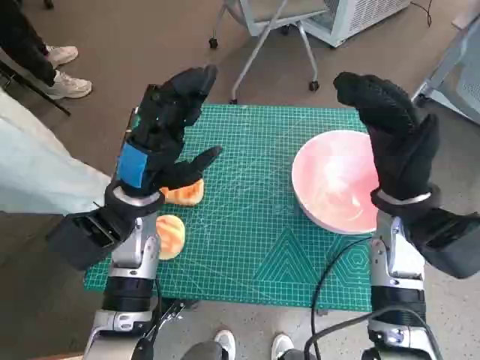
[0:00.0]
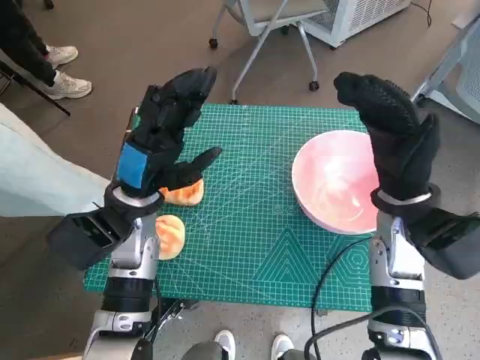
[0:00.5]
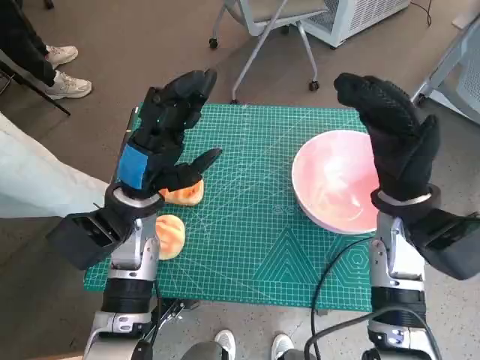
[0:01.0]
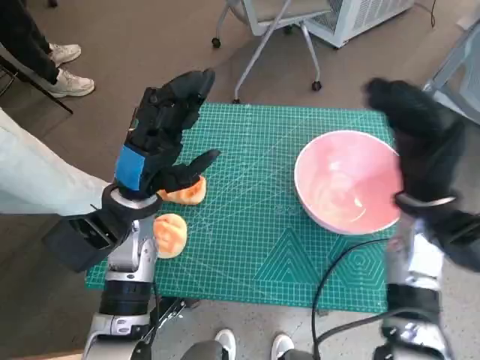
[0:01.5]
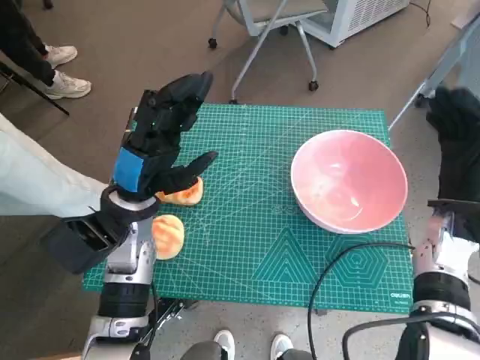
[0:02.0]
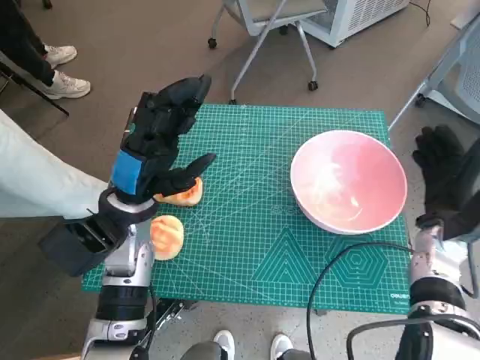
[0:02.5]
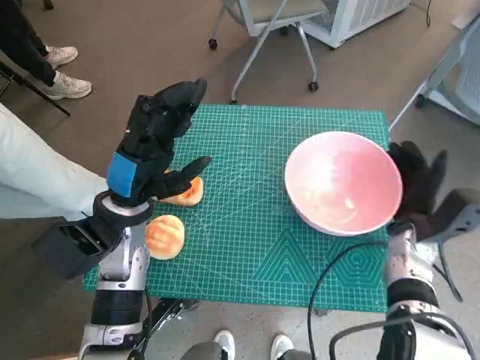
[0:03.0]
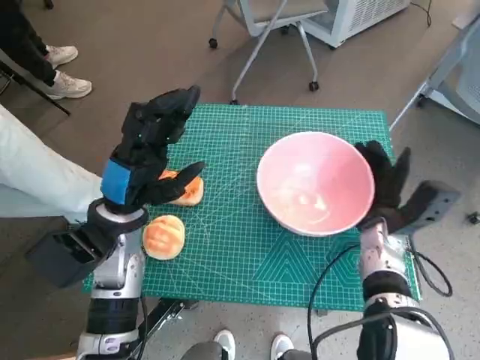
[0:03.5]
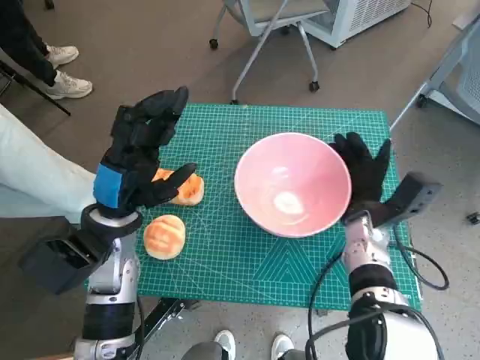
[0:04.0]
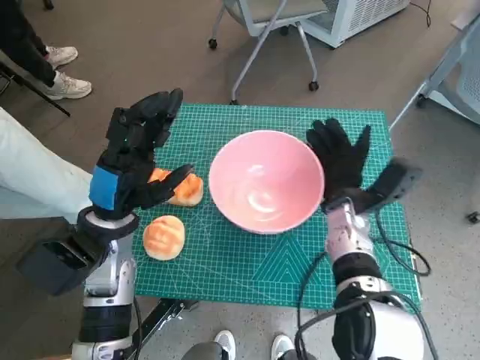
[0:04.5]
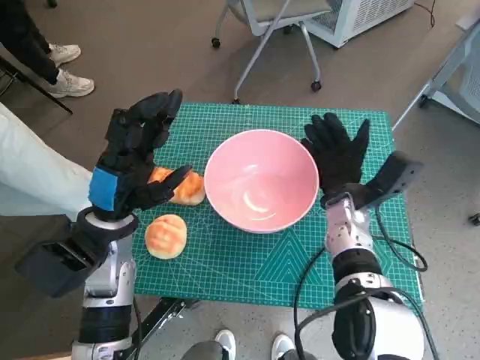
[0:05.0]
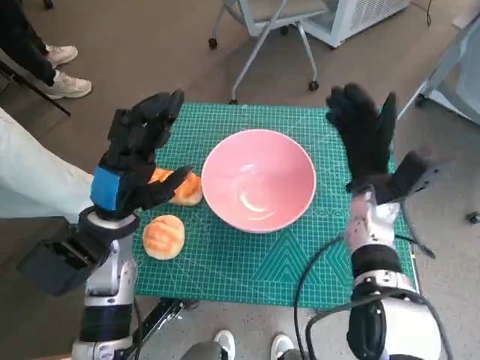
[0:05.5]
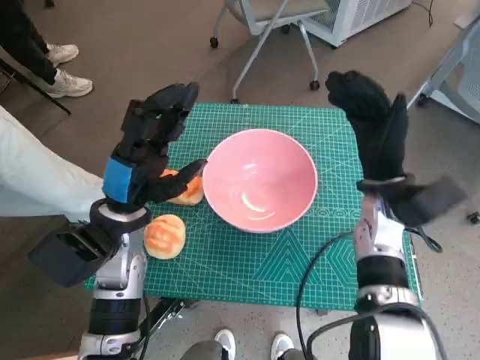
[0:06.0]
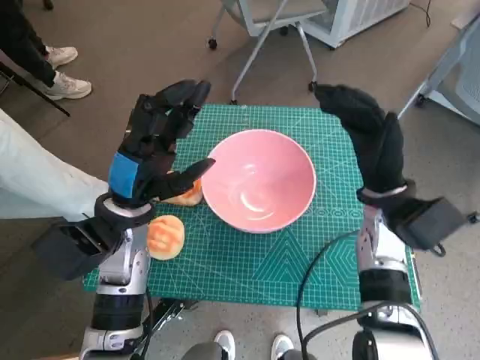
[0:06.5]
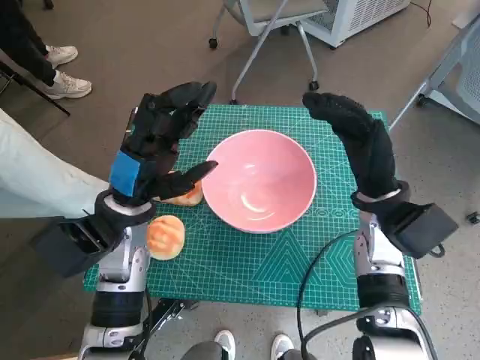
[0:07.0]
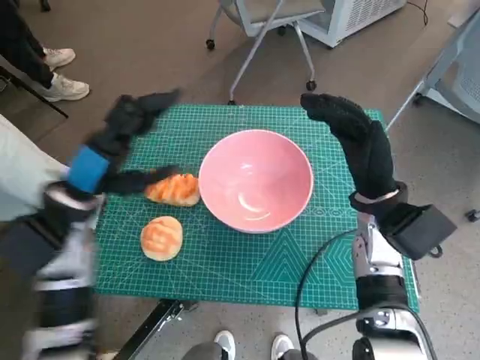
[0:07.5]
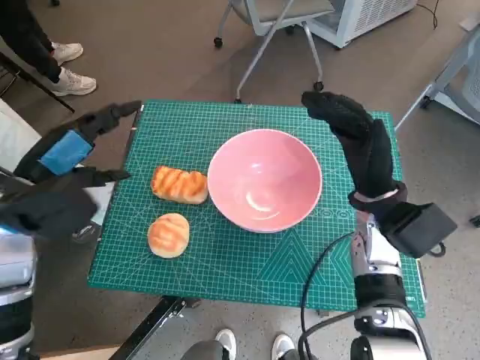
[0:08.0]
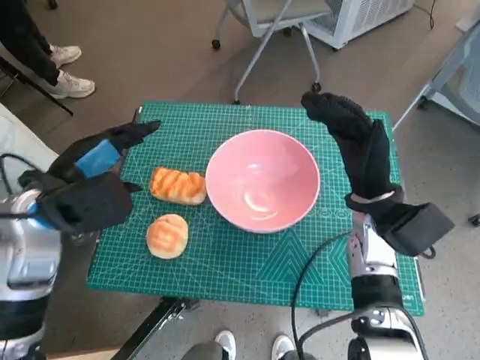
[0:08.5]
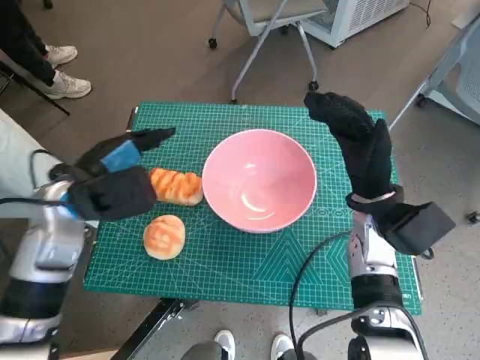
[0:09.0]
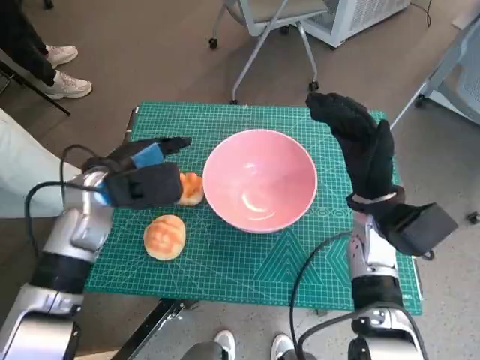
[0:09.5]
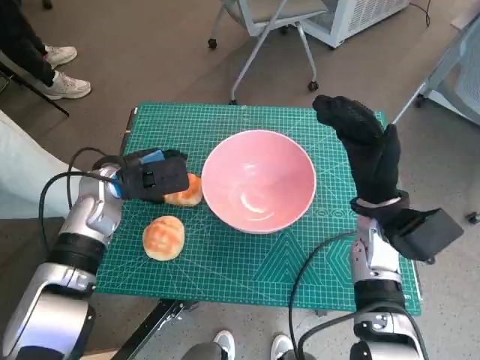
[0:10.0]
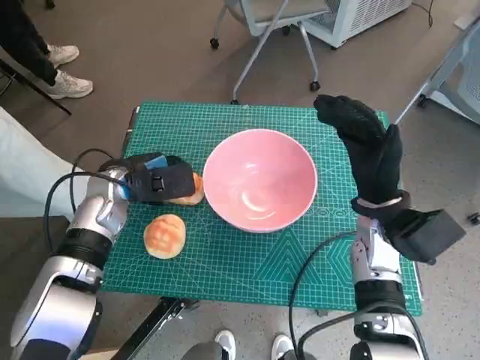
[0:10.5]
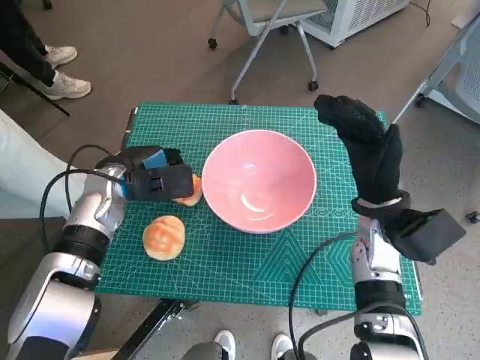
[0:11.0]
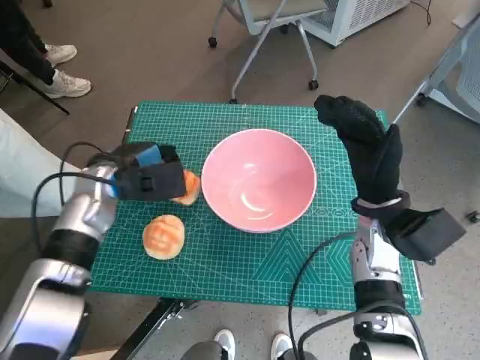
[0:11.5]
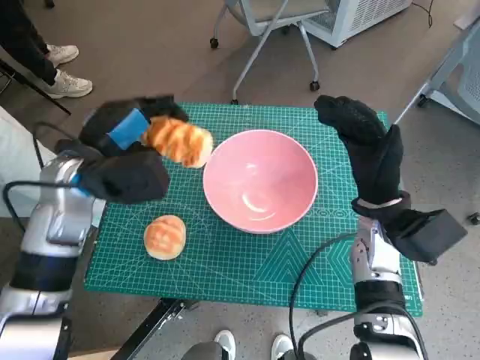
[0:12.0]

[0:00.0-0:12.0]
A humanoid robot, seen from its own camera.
Task of the whole recording: Push the bowl into the center of the table and put the bread into the bowl.
Step, 0:00.0 to 0:05.5: Move the pink bowl to the center of table with right hand.
Step, 0:06.0 to 0:10.5: Grasp the long bread with left hand.
0:02.0 to 0:04.0: The right hand travels to the left and downward by roughly 10 cm.
0:04.0 to 0:06.0: The right hand goes about 10 cm upward.
0:06.0 to 0:08.0: The left hand moves to the left and upward, about 10 cm.
0:08.0 to 0:10.0: The left hand goes some 10 cm forward, downward and to the right.
0:10.0 to 0:12.0: The left hand is displaced upward by about 5 cm.

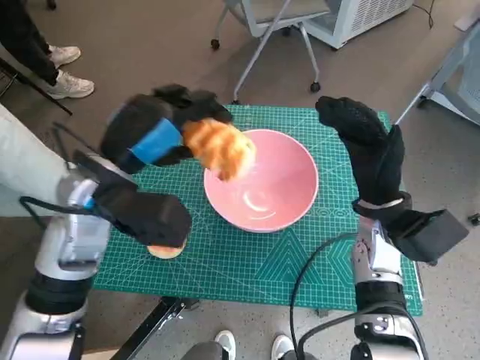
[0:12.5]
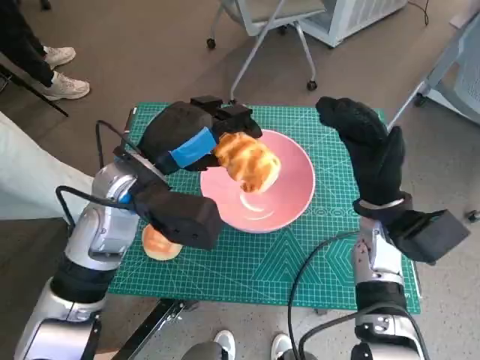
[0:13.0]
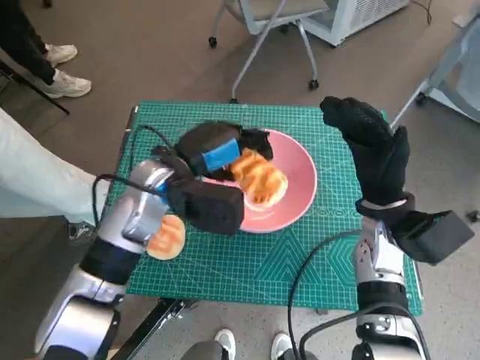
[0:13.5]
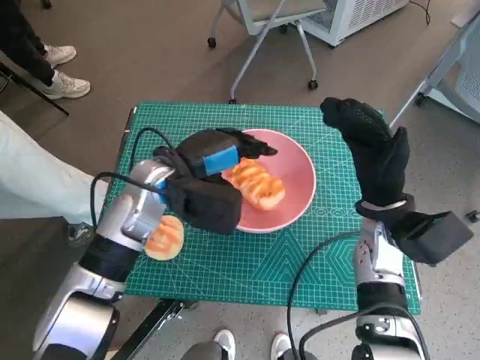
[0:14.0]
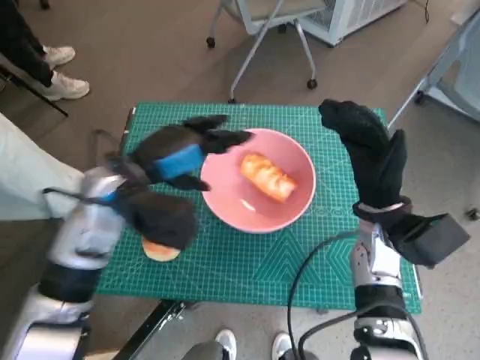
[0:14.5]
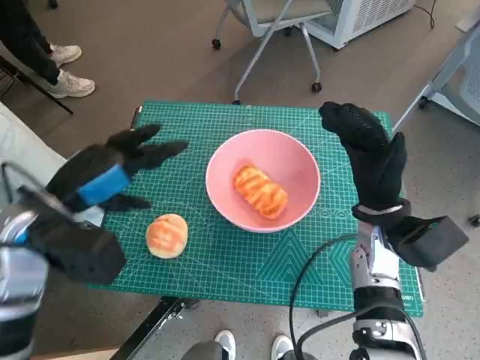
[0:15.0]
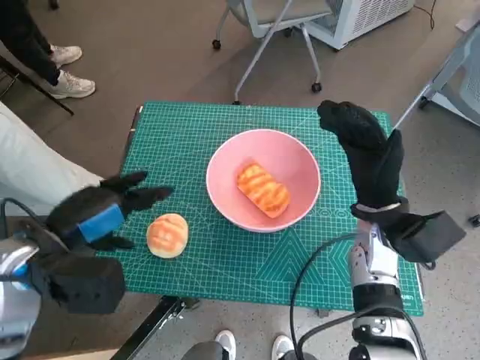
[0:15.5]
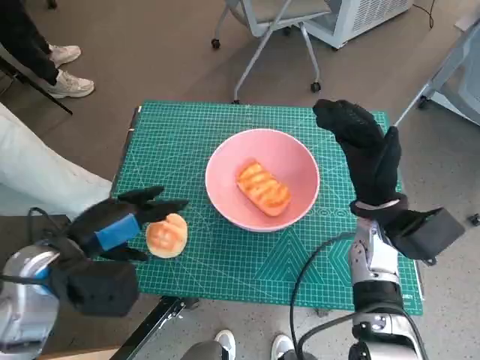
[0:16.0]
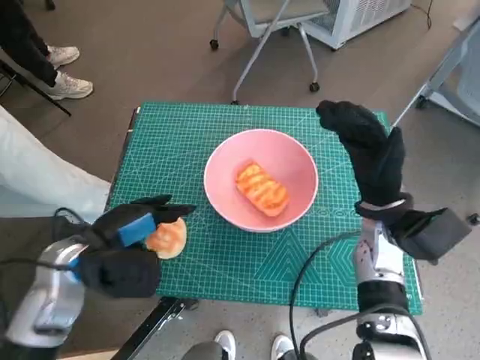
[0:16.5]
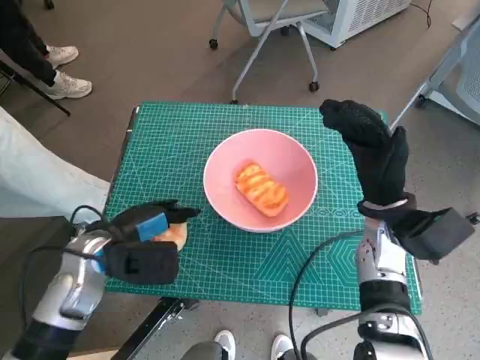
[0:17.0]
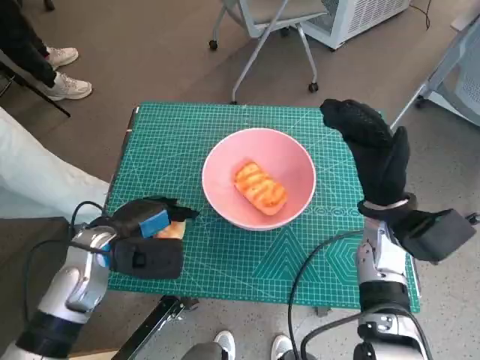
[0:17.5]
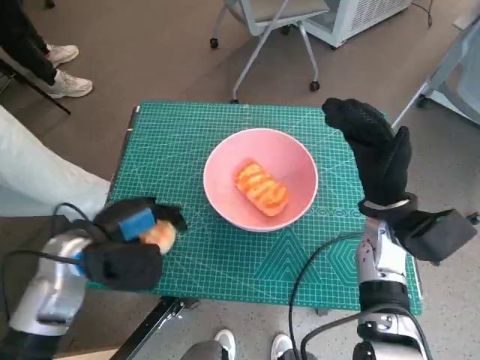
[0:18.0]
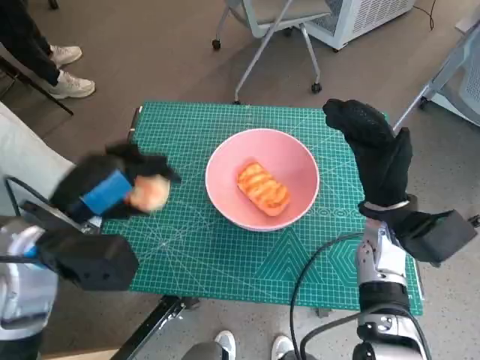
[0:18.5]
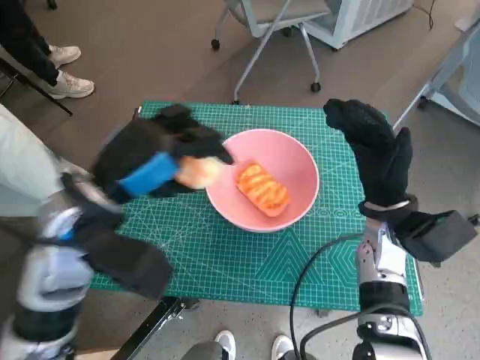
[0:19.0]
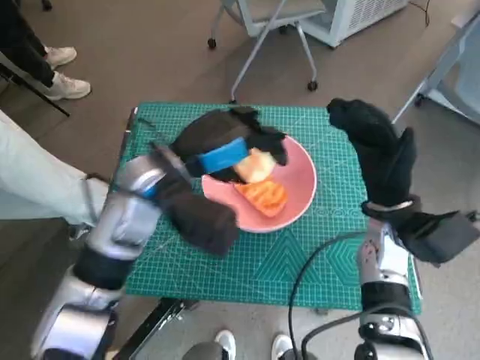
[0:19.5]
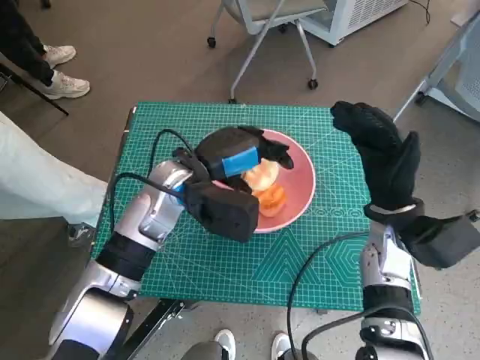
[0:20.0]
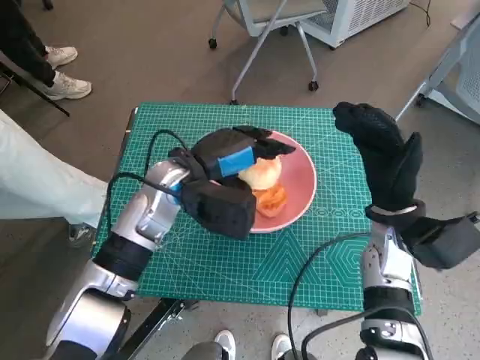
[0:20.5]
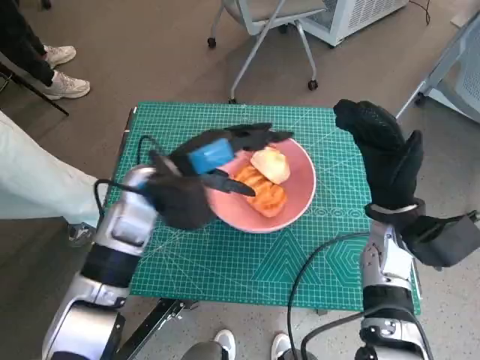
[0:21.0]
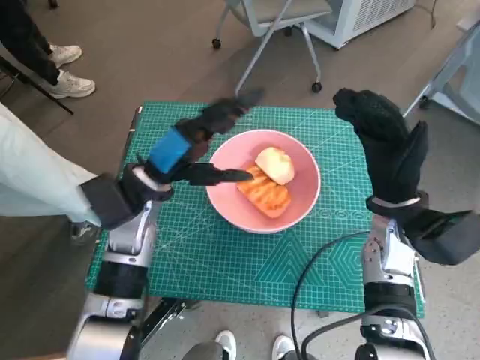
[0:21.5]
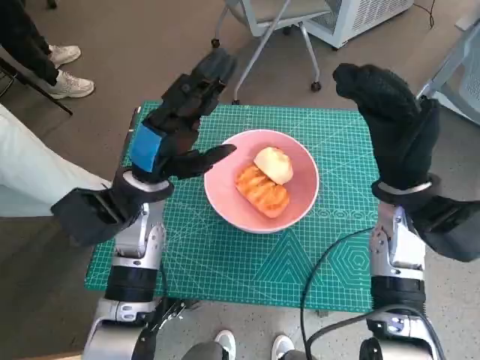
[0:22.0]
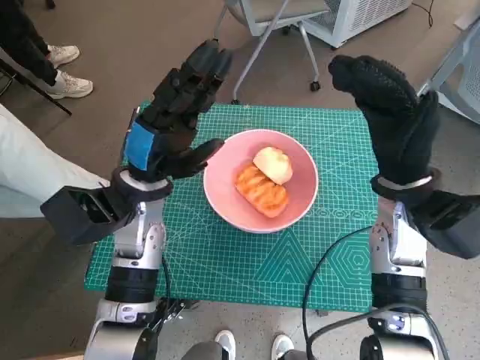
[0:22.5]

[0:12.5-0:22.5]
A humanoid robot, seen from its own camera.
Task of the whole recording: Push the bowl into the center of the table and put the bread into the bowl.
Step, 0:14.5 to 0:17.5: Grasp the round bread with left hand.
Step, 0:18.0 to 0:21.0: Place the round bread in pink bowl with left hand.
0:14.5 to 0:16.5: The left hand shifts about 10 cm backward, to the left and downward.
0:16.5 to 0:18.5: The left hand is displaced upward by about 5 cm.
0:18.5 to 0:20.5: The left hand moves to the right and forward, roughly 15 cm.
0:20.5 to 0:22.5: The left hand shifts by approximately 5 cm; the right hand shifts about 5 cm upward.

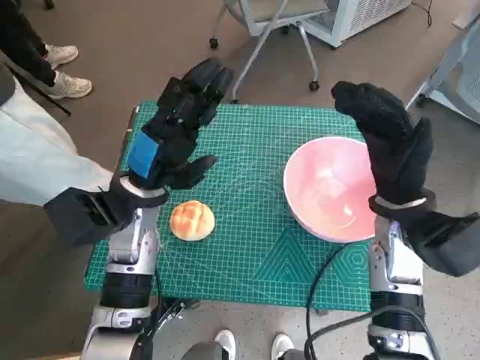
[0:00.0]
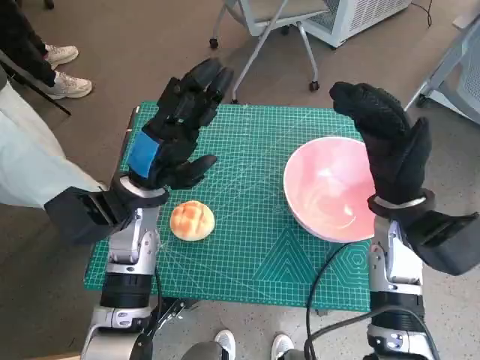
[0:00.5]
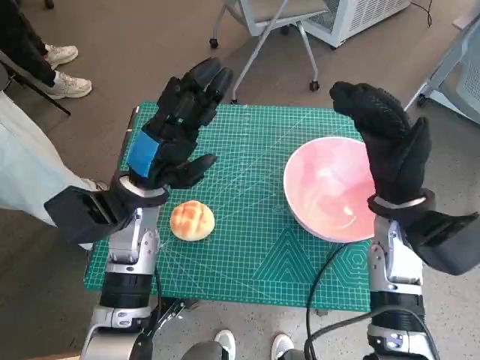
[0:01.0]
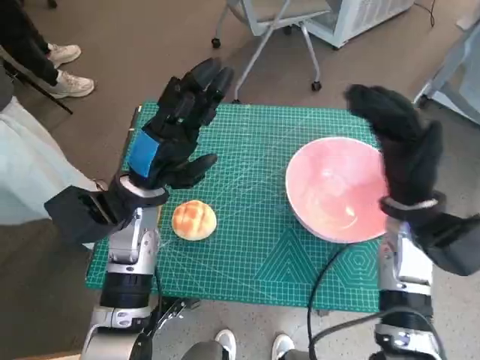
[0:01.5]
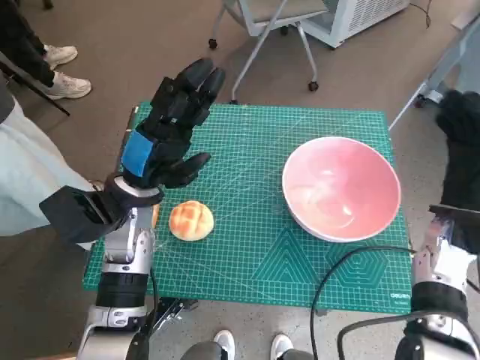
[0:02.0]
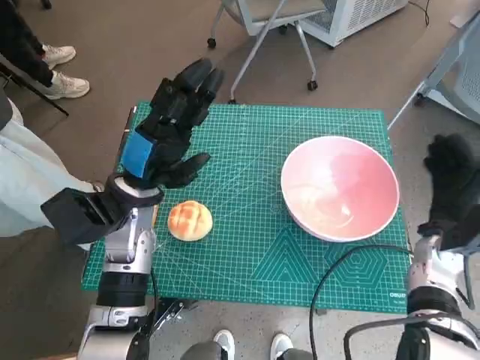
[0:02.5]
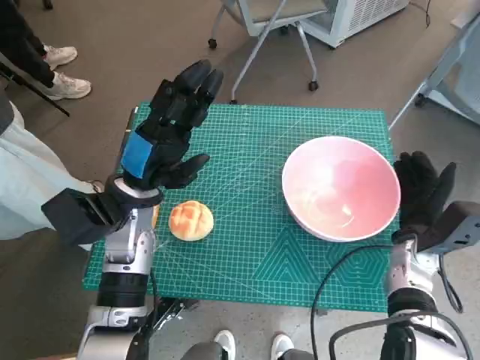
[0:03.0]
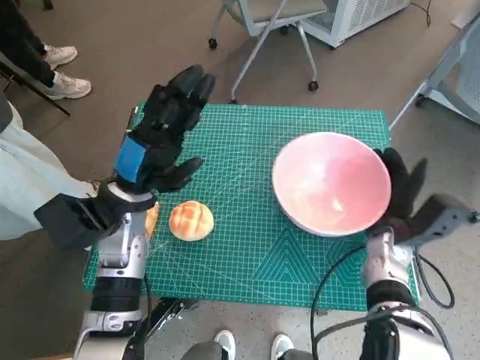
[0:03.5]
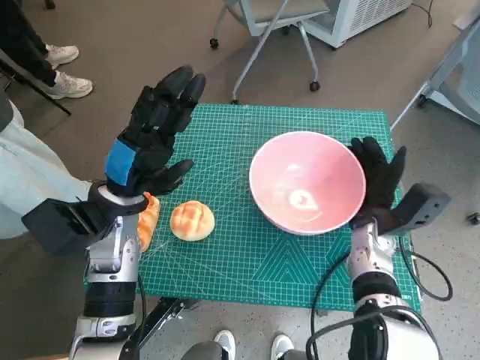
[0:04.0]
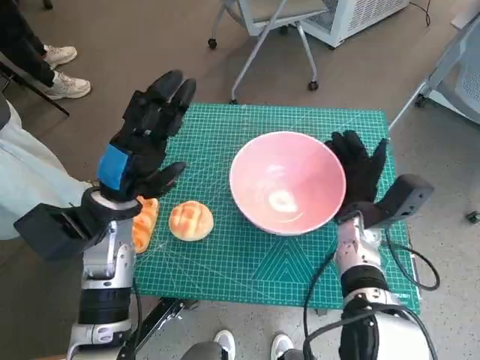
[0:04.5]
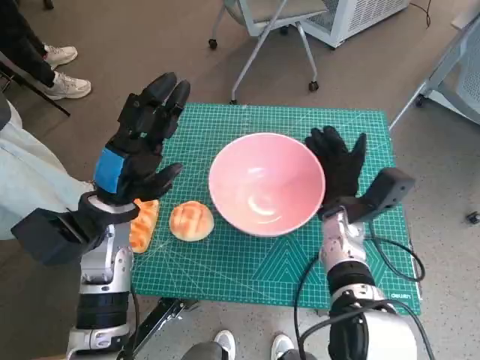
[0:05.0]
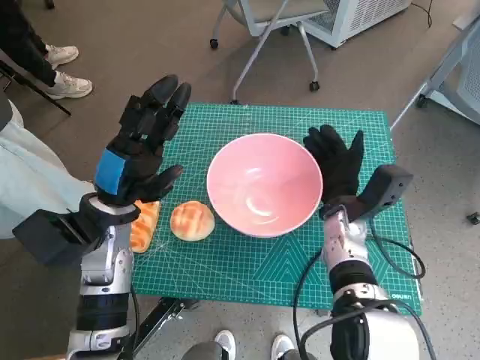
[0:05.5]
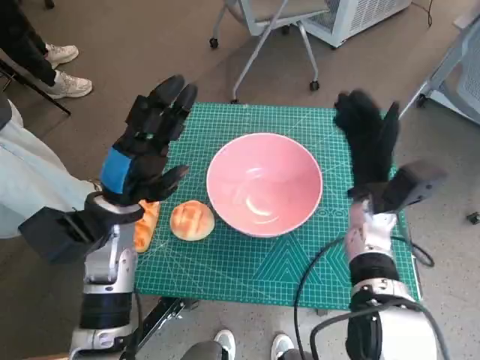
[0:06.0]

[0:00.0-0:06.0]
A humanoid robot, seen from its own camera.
Task of the whole recording: Push the bowl into the center of the table and put the bread into the bowl.
0:02.0 to 0:04.0: The right hand is displaced to the left and downward by roughly 10 cm.
0:04.0 to 0:06.0: The right hand shifts by approximately 5 cm.
